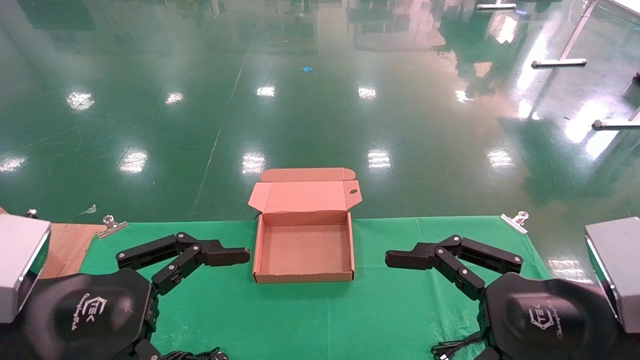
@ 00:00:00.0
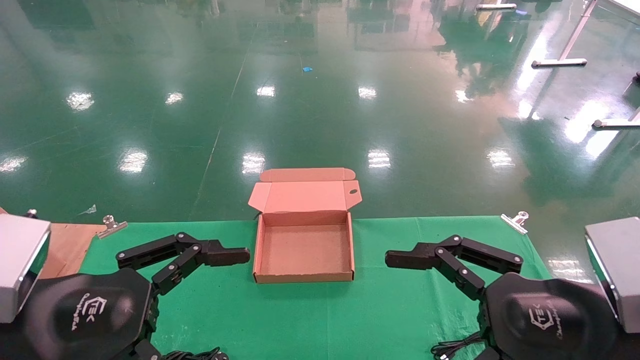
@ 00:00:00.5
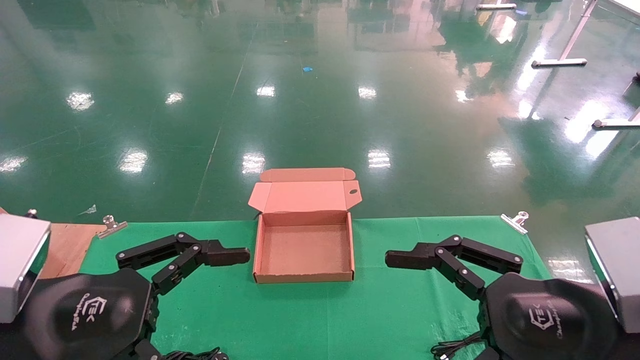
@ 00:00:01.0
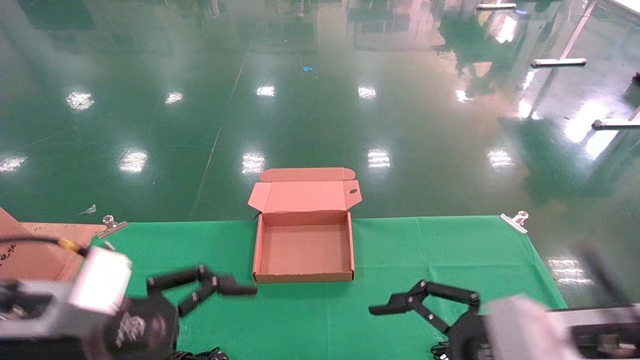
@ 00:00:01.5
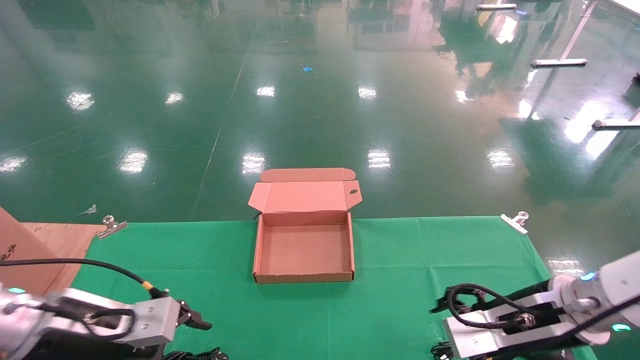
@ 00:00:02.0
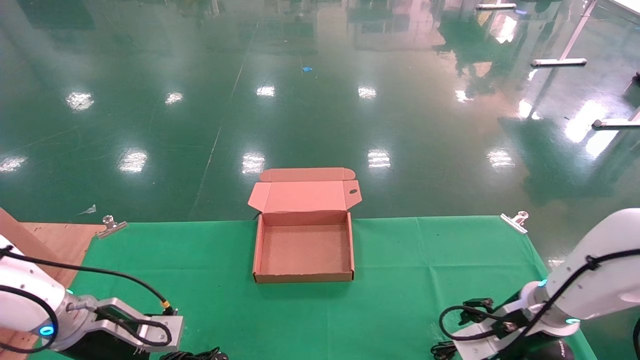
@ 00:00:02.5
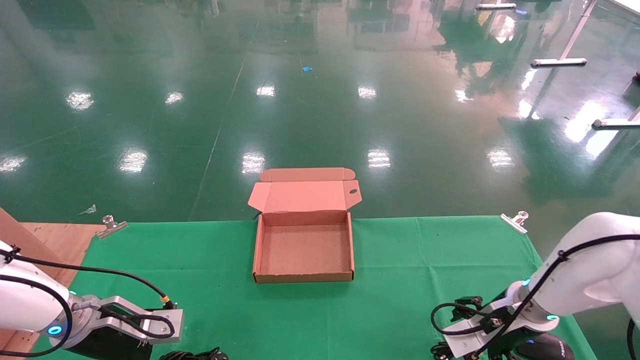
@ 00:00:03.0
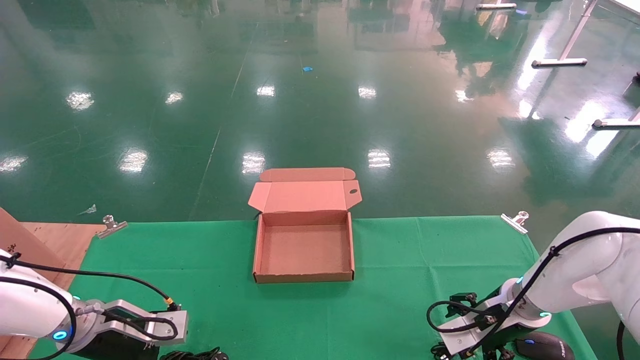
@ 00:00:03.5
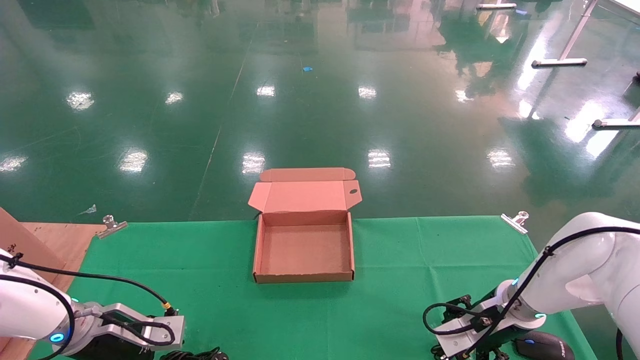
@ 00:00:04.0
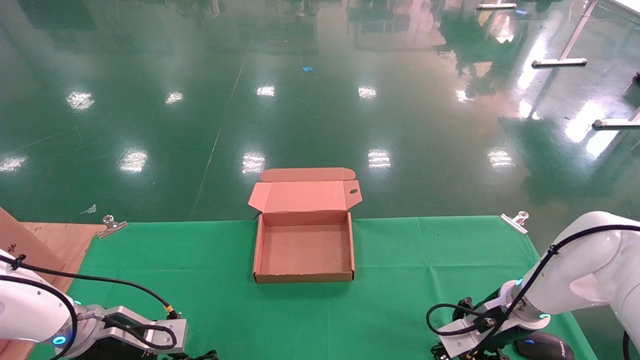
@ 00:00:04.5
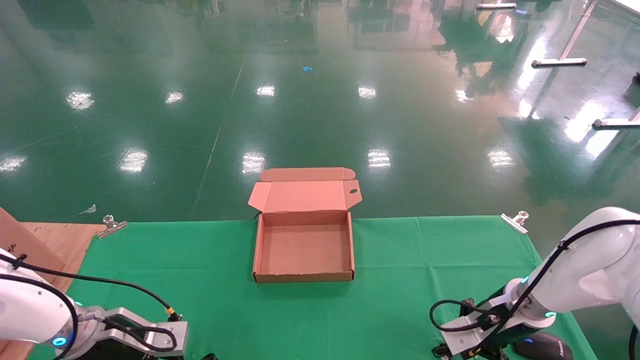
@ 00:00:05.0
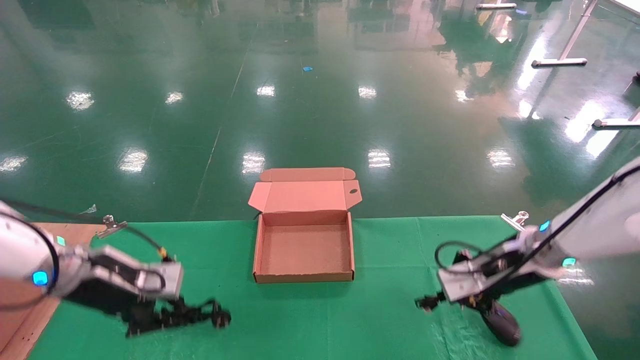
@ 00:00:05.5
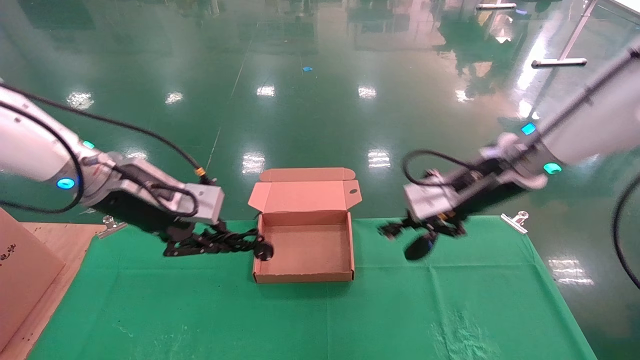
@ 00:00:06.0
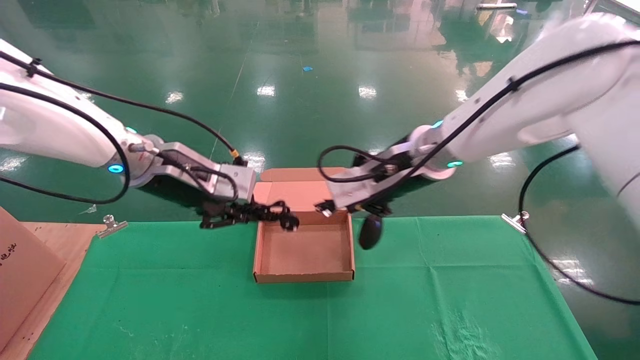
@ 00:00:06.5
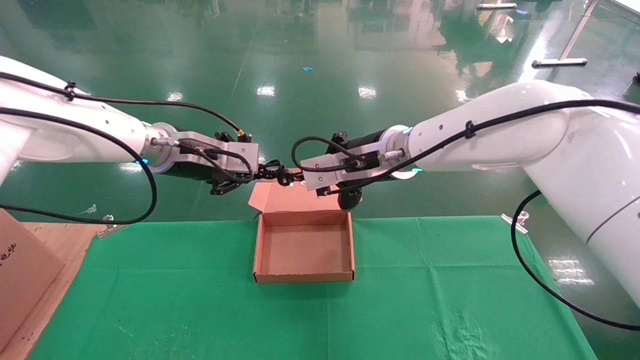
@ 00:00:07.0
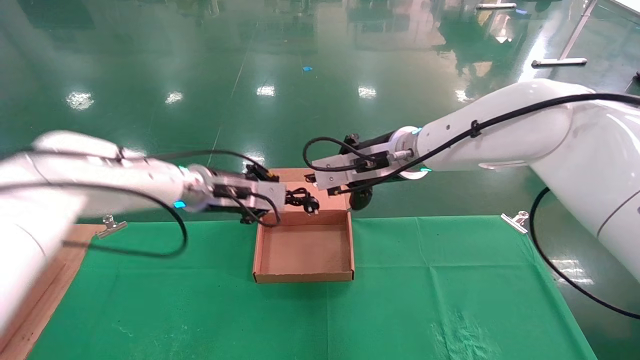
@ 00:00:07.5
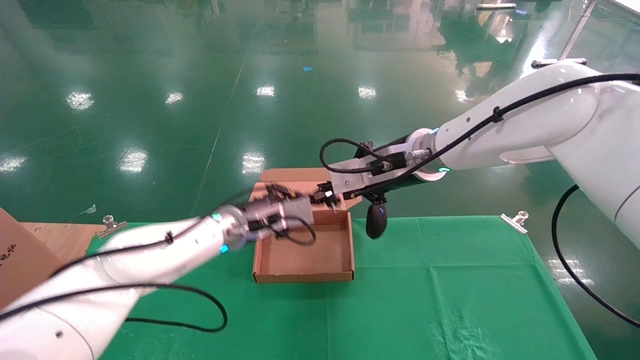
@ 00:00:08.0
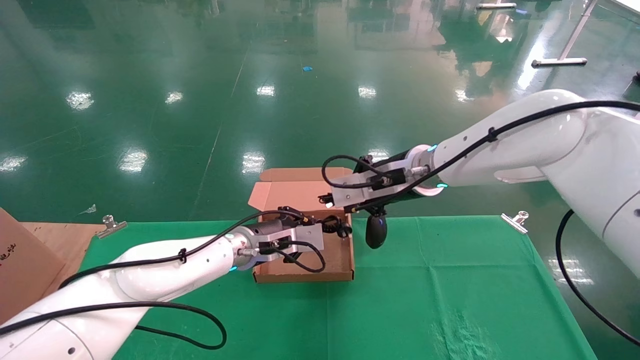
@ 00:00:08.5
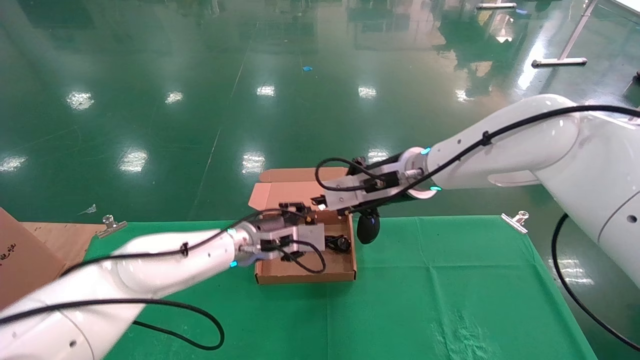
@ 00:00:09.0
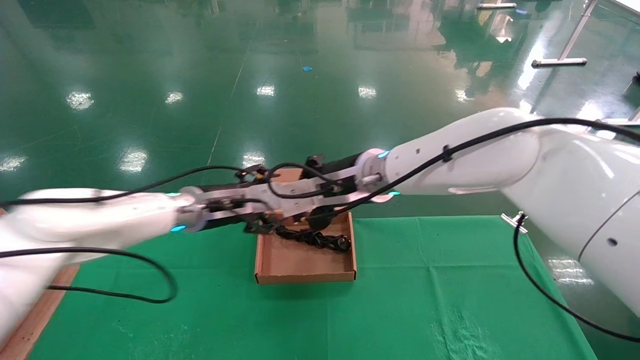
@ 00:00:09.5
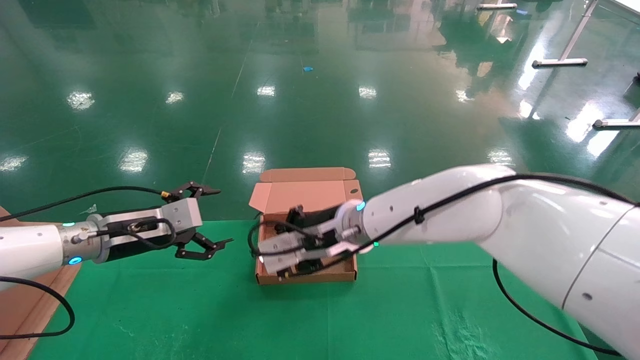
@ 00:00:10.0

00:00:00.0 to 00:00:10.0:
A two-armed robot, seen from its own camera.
Step, 00:00:02.0 to 00:00:04.5: Grab and lift both the mouse and power cord from the accessory packaging area at the same time.
00:00:00.0 to 00:00:02.0: The grippers both shift forward and downward by roughly 15 cm.
00:00:02.0 to 00:00:04.0: Both grippers travel together forward and downward, roughly 10 cm.
00:00:04.0 to 00:00:06.0: Both grippers travel together upward, approximately 20 cm. The right gripper closes up. Meanwhile the left gripper closes up.
00:00:06.0 to 00:00:08.0: The right gripper heads to the left, covering roughly 10 cm. The left gripper moves to the right, forward and downward, some 20 cm.
00:00:08.0 to 00:00:10.0: The right gripper goes about 15 cm to the left and downward. Meanwhile the left gripper goes roughly 15 cm to the left, and opens its fingers.

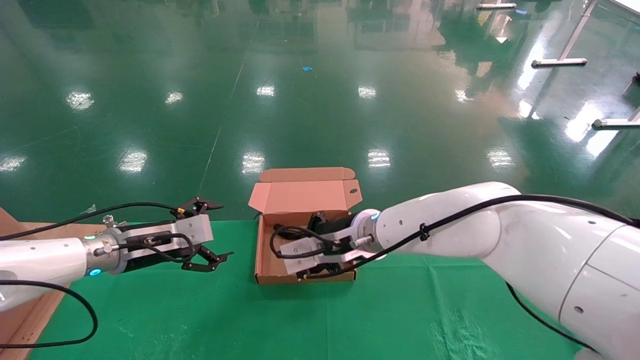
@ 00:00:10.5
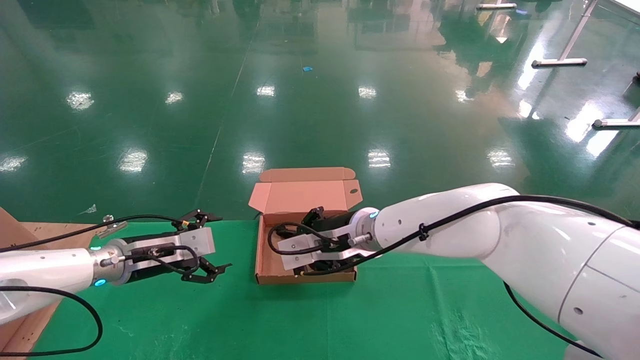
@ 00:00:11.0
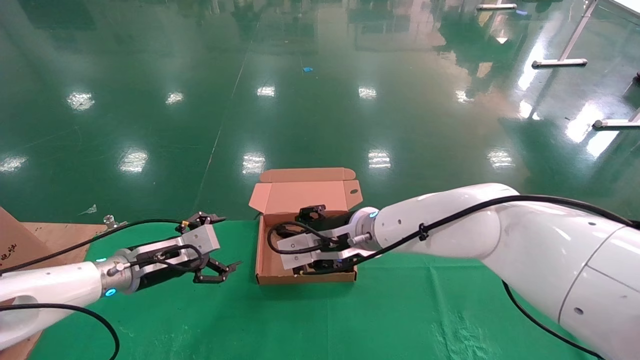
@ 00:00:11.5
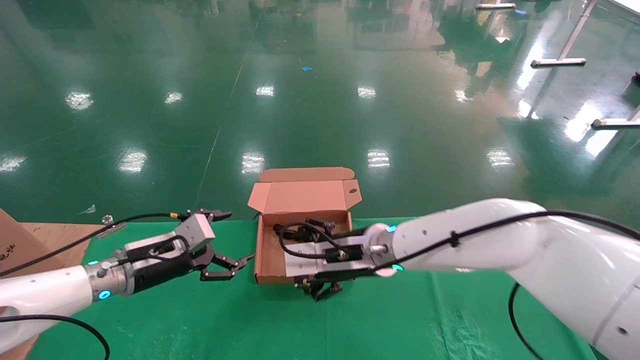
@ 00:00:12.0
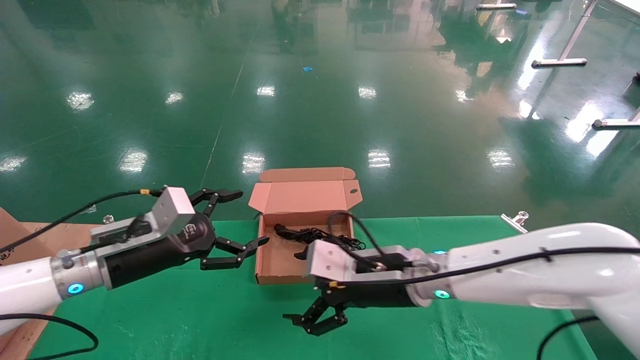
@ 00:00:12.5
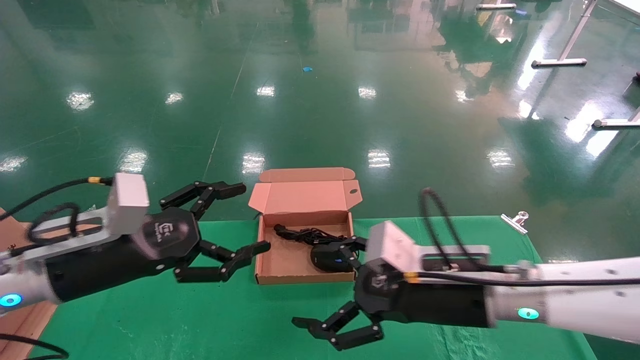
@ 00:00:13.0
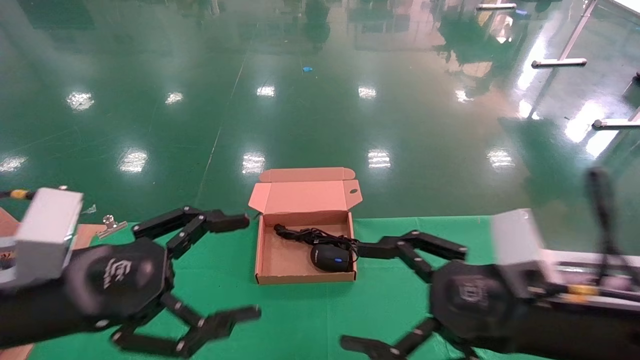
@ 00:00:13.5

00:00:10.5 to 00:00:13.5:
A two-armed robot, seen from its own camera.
00:00:10.5 to 00:00:12.0: The right gripper opens its fingers.
00:00:12.0 to 00:00:13.5: The left gripper shifts about 25 cm backward and upward. Meanwhile the right gripper moves backward and to the right, approximately 25 cm.

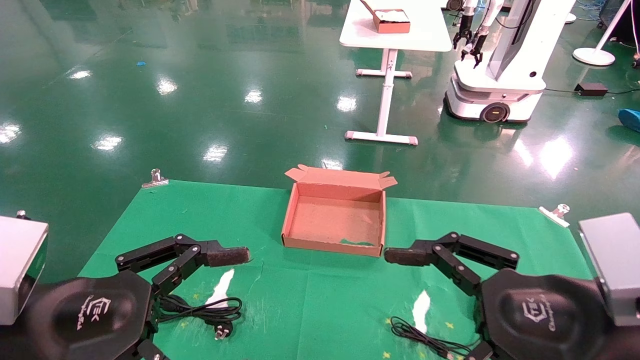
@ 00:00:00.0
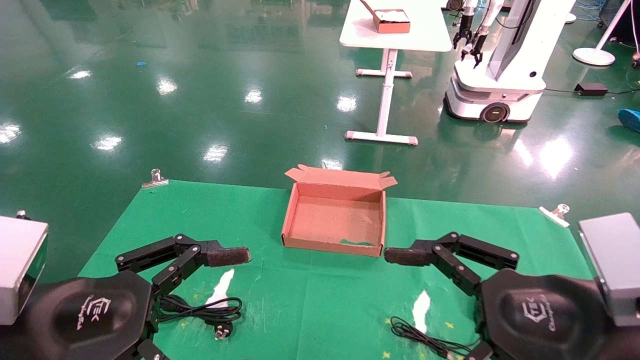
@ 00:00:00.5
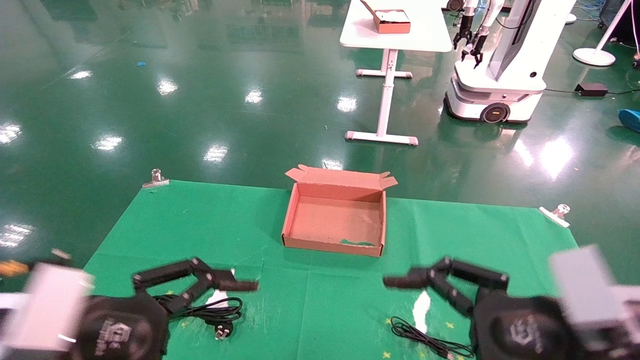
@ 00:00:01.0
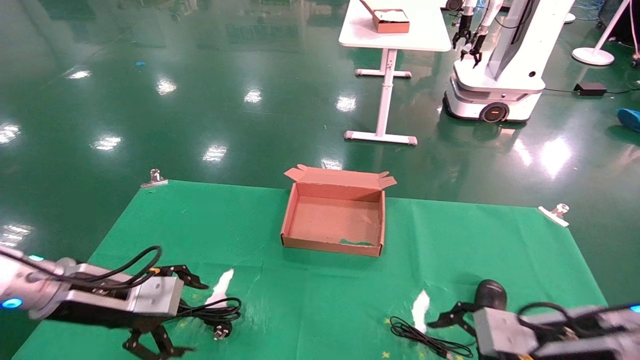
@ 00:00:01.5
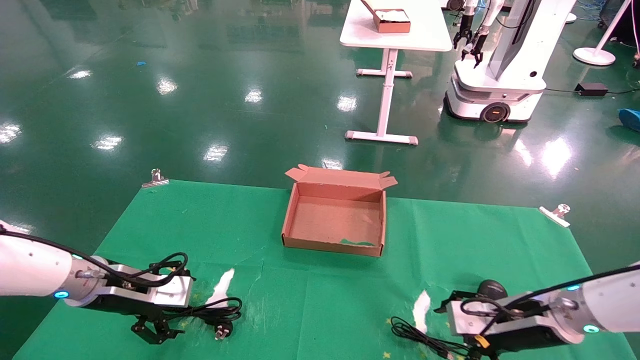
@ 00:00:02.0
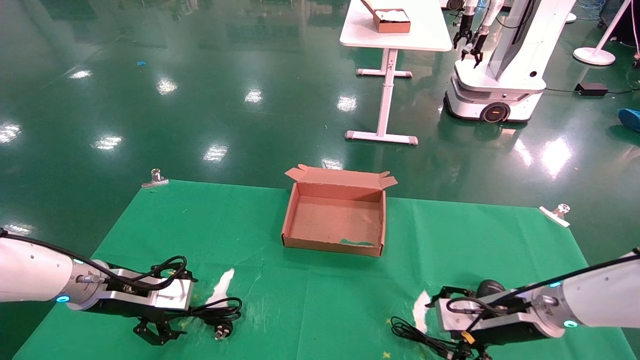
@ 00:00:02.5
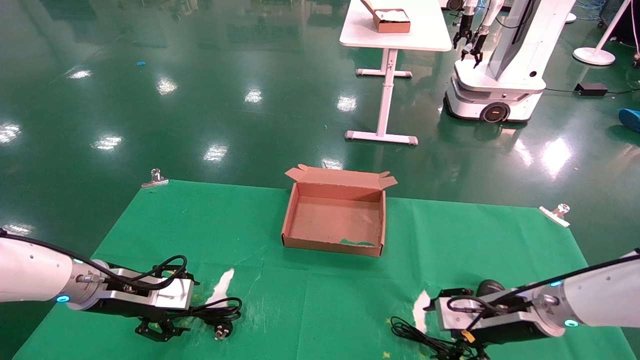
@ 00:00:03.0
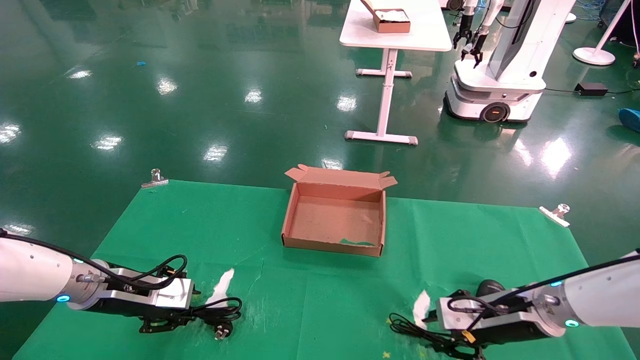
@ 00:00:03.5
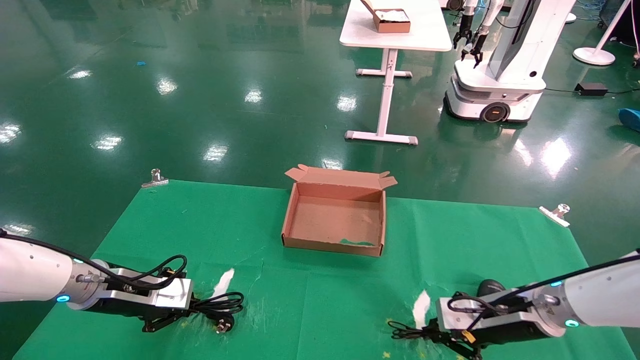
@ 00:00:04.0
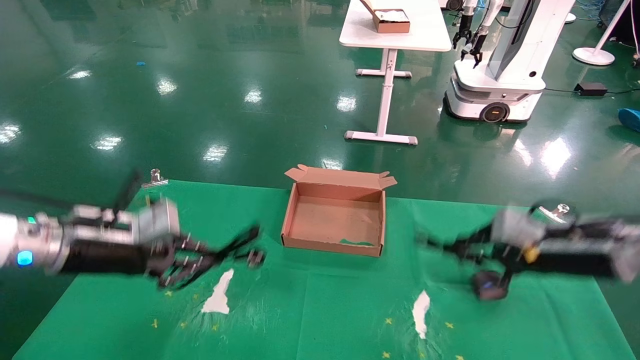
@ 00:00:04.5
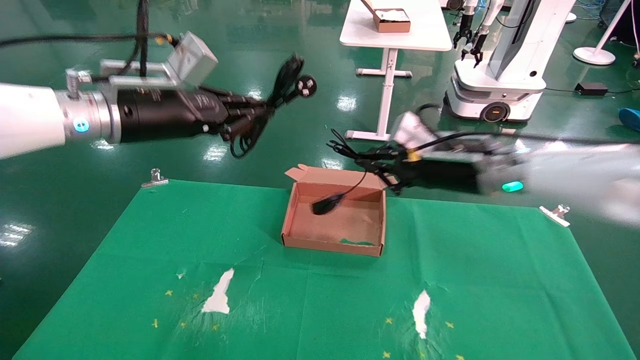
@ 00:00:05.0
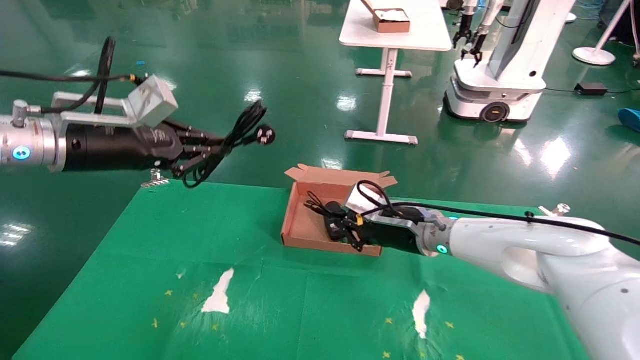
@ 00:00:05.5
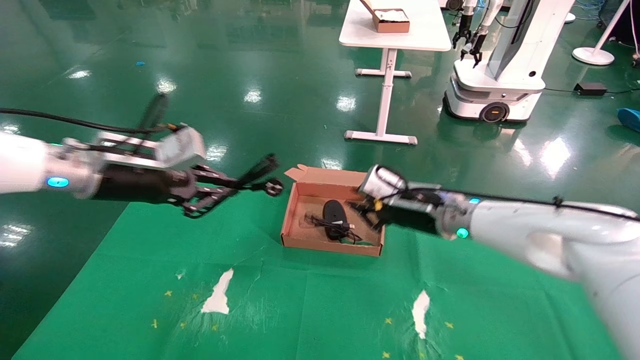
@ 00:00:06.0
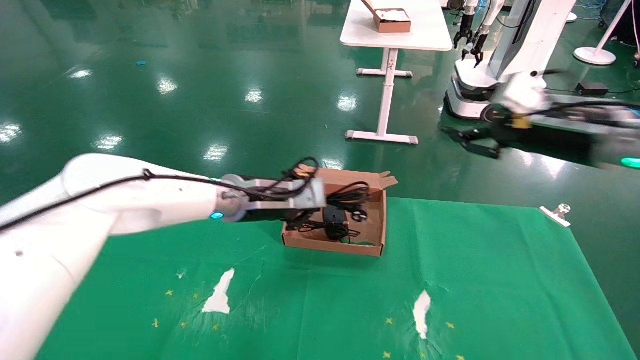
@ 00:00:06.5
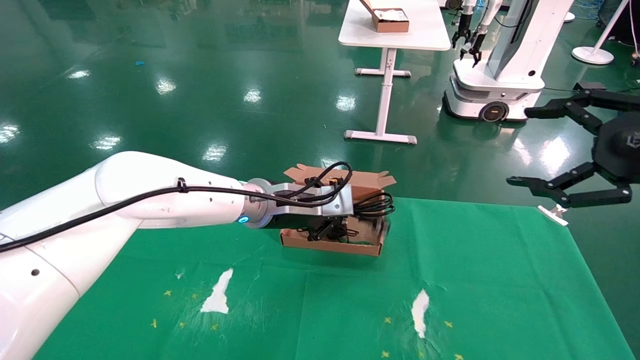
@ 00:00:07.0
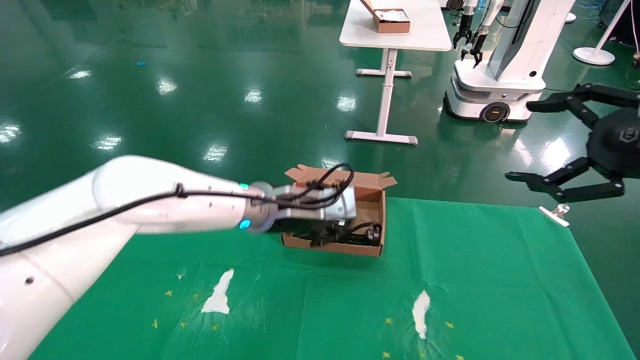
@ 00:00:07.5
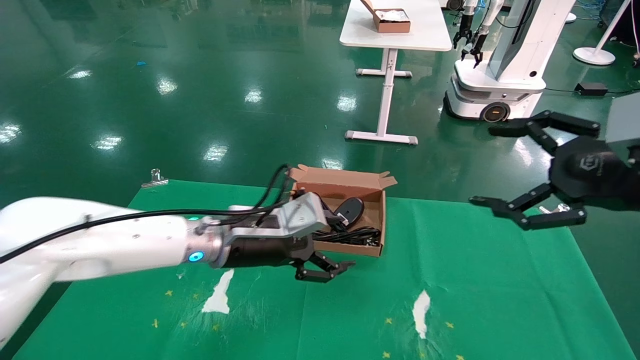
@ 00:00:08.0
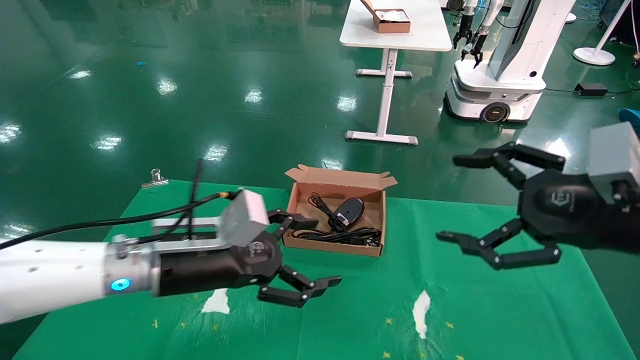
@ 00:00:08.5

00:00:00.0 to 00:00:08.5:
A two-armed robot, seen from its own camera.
Step, 00:00:01.0 to 00:00:04.0: Grab and lift both the mouse and power cord from the accessory packaging area at the same time.
Step, 00:00:04.5 to 00:00:08.0: Place the mouse and power cord into the box.
00:00:00.0 to 00:00:02.0: The right gripper travels forward and downward by some 25 cm, while the left gripper heads forward, covering approximately 20 cm.
00:00:02.0 to 00:00:04.0: The right gripper closes. The left gripper closes up.
00:00:04.0 to 00:00:06.5: The left gripper travels to the right and upward by approximately 25 cm. Meanwhile the right gripper goes up and down, approximately 25 cm each way, reversing 2 times.
00:00:06.5 to 00:00:08.5: The right gripper travels backward by about 15 cm, and opens its fingers. The left gripper travels backward and to the left by some 15 cm, and opens up.
